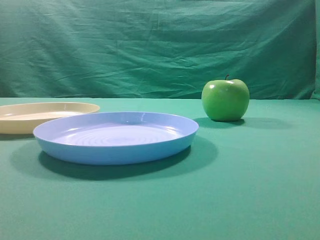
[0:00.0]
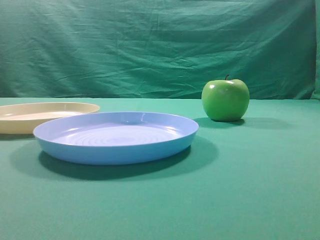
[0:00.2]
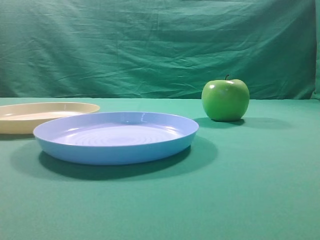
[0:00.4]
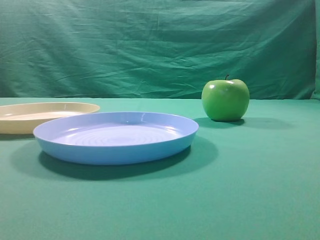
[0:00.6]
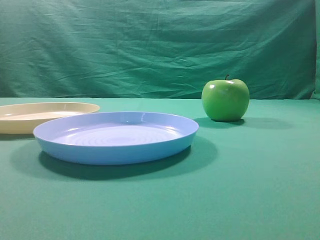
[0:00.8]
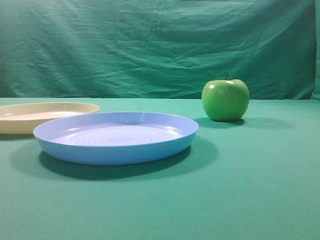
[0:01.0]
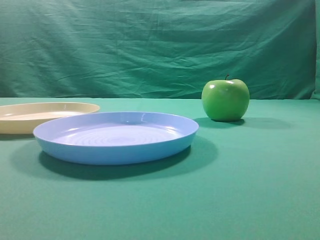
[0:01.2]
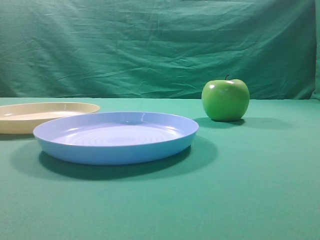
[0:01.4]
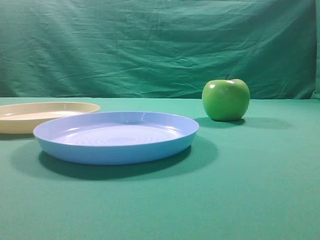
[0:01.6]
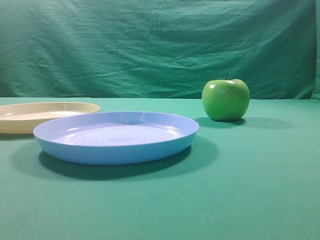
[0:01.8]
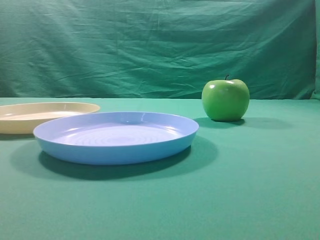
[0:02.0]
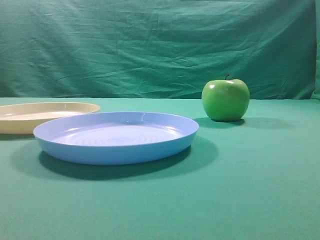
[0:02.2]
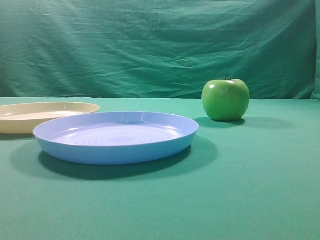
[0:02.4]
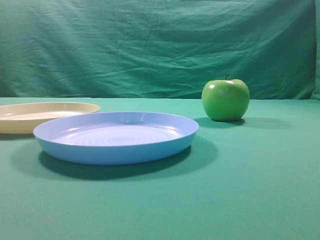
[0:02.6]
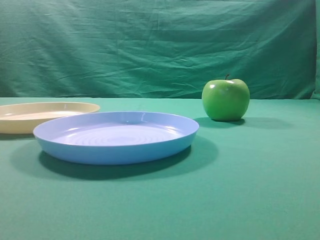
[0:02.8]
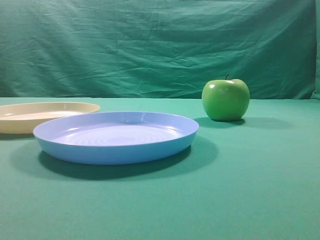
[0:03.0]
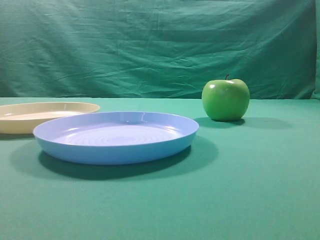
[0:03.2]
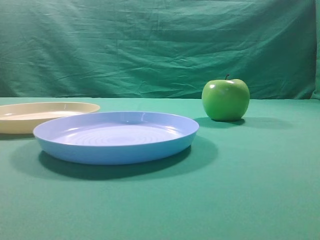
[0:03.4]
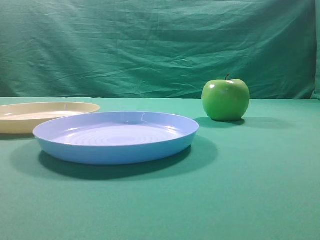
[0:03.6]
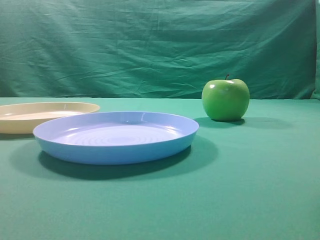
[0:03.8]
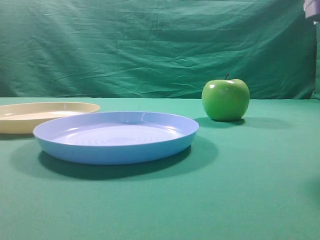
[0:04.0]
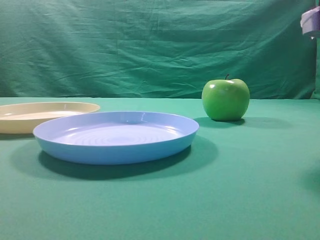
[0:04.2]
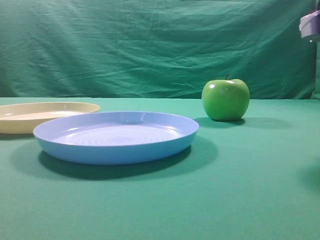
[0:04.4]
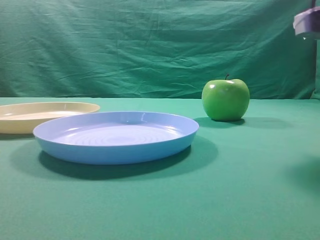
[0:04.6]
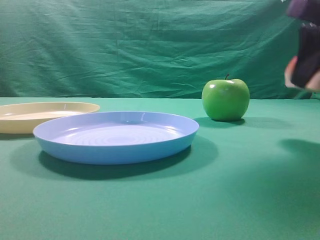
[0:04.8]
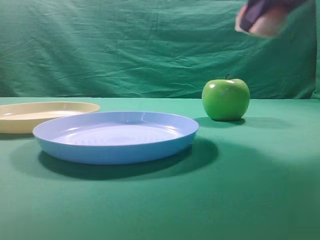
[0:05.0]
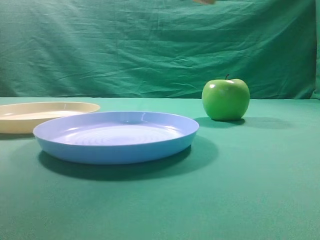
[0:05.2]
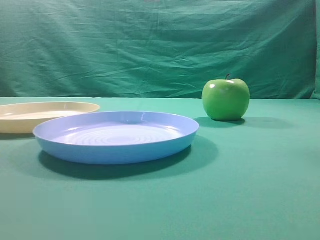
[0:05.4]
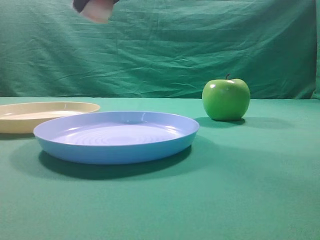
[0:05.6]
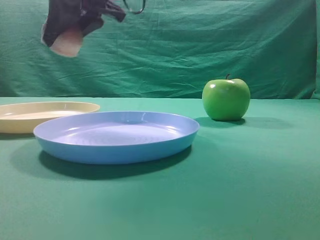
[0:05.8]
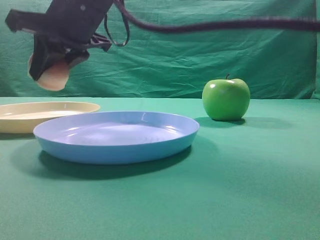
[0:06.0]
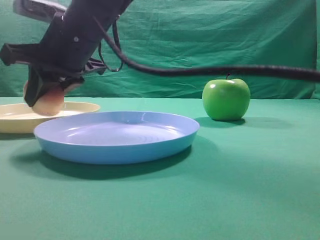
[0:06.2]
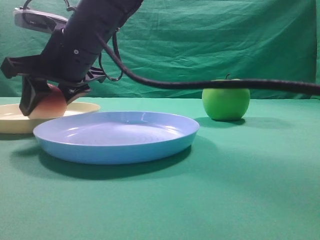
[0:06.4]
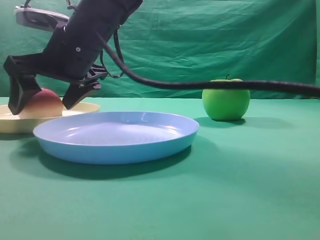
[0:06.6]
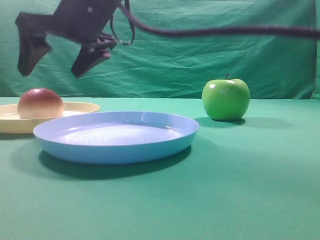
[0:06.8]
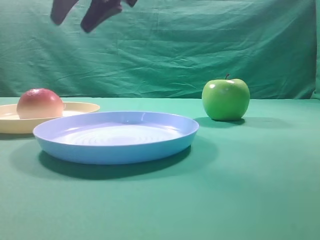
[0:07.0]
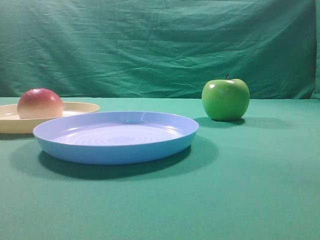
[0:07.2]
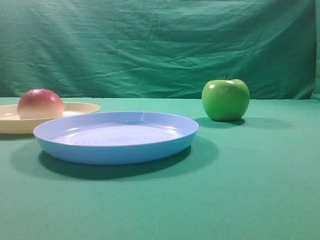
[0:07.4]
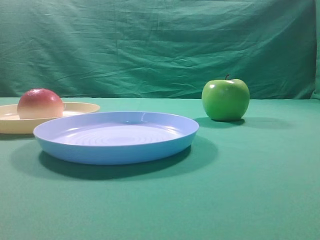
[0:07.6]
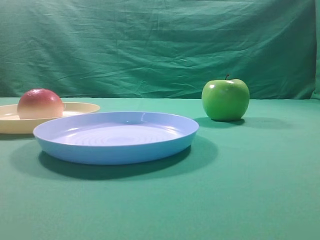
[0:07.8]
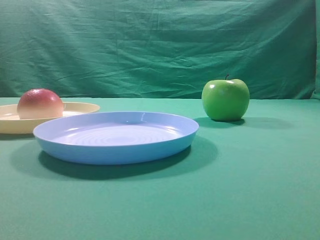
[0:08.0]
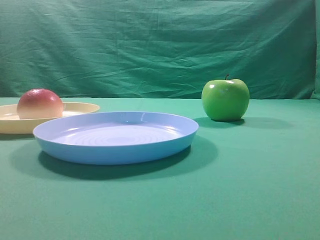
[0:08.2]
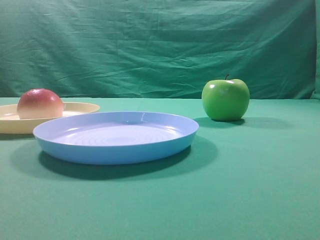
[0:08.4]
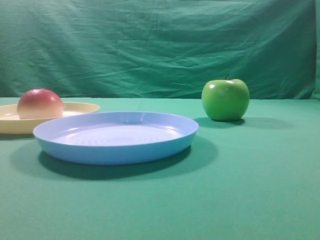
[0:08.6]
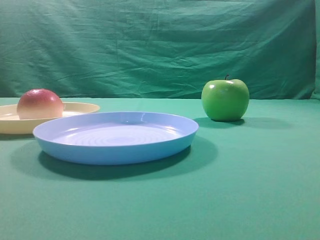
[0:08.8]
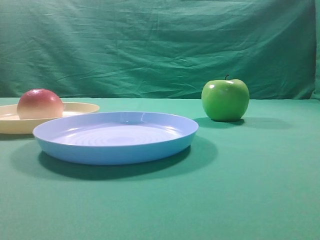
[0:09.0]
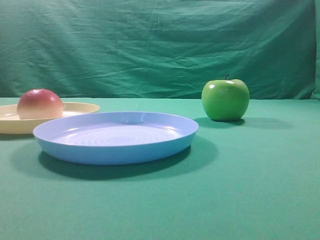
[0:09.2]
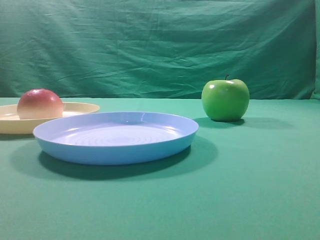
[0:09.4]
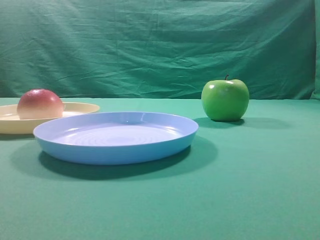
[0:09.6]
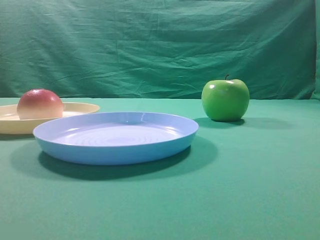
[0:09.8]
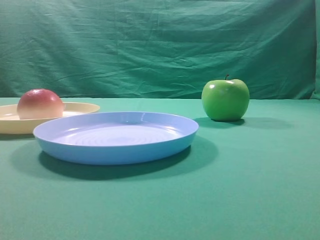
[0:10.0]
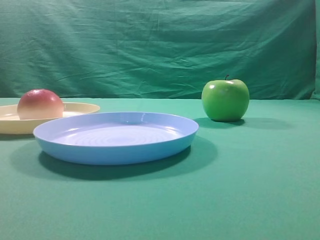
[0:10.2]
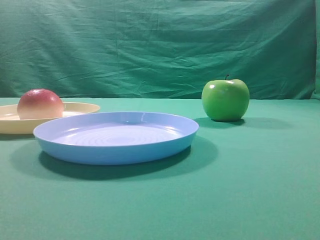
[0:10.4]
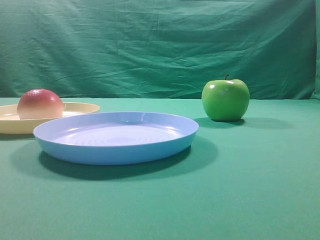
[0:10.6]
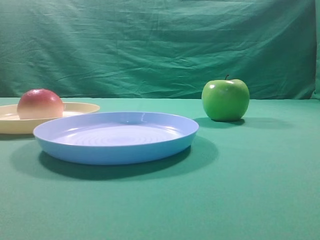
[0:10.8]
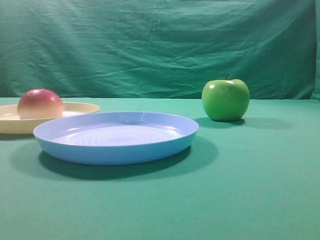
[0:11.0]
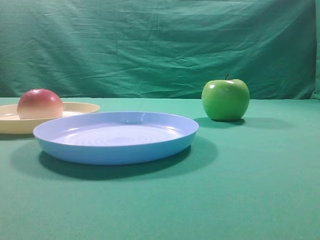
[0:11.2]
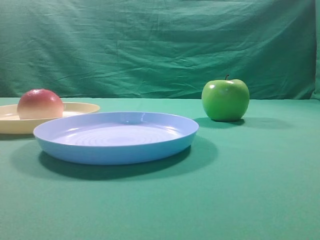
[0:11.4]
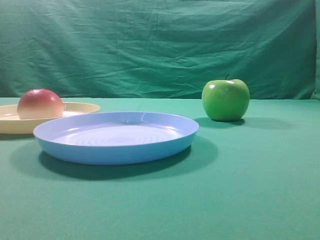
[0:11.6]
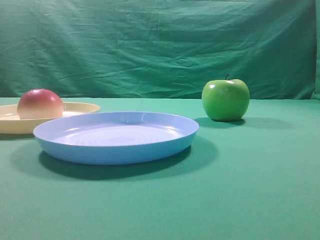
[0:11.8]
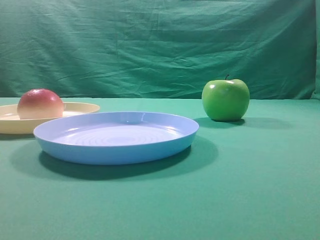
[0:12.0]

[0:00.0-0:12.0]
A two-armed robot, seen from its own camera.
Step, 0:05.0 to 0:06.8: Place the picked object on the yellow plate.
